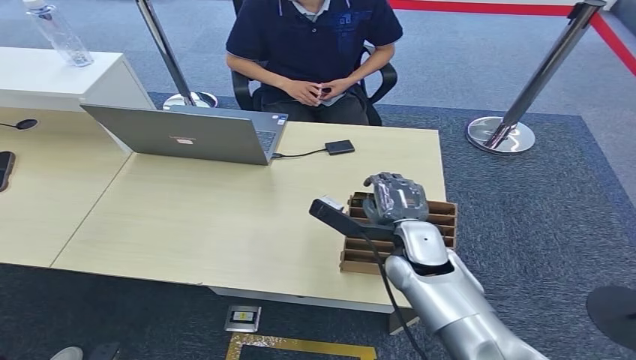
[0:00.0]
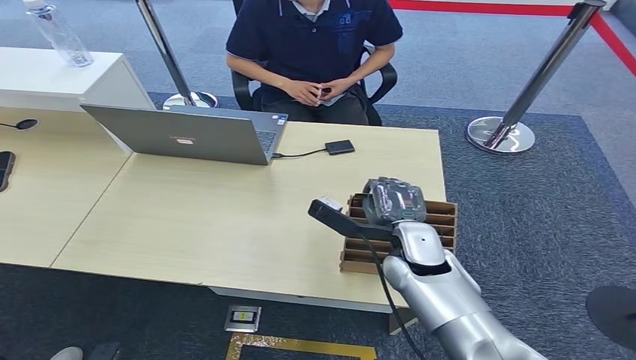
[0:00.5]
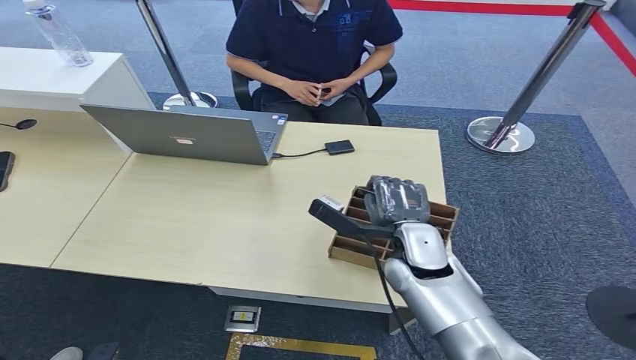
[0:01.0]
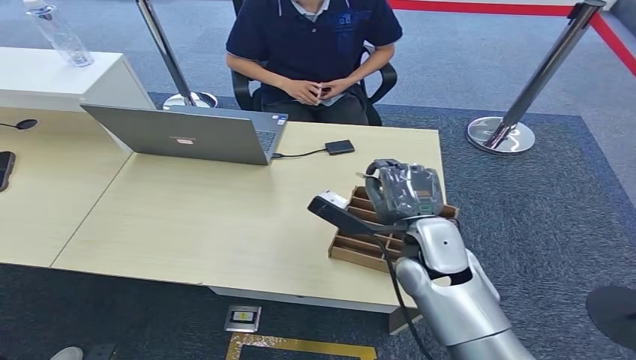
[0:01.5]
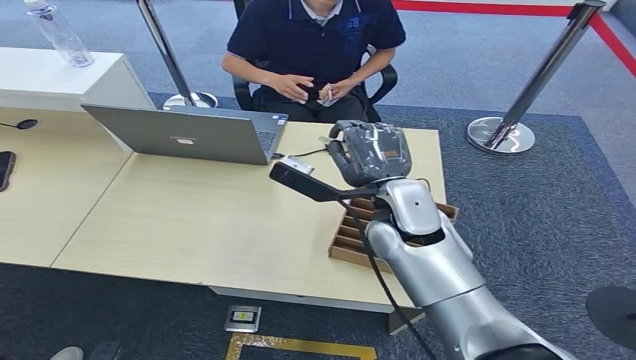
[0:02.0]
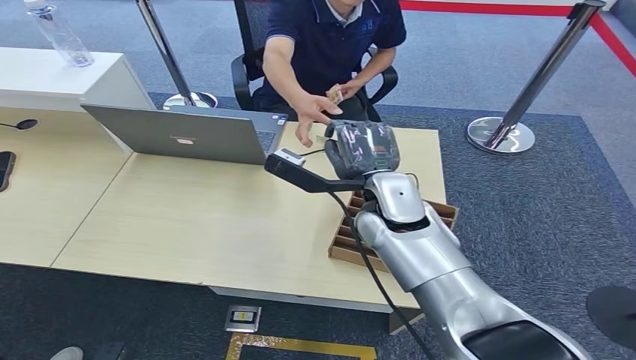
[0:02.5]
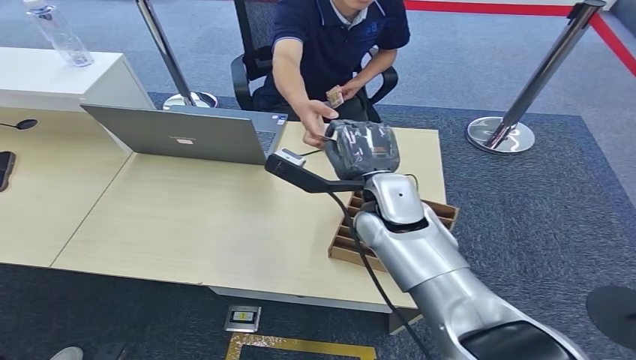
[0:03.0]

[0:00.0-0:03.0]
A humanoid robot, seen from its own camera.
Step, 0:00.0 to 0:02.0: Pick up the room card from the card holder.
Step, 0:02.5 to 0:03.0: Hand the room card to the target.
0:00.0 to 0:01.5: The hands stay close to where they were, moving slightly.
0:01.5 to 0:03.0: The right hand travels forward by approximately 5 cm.
